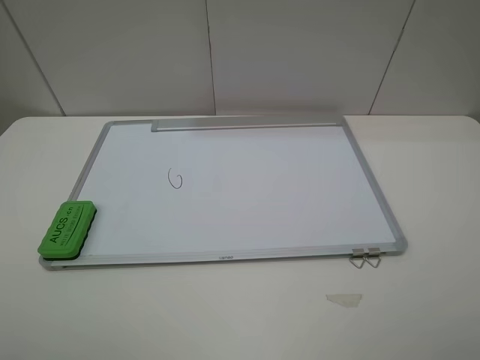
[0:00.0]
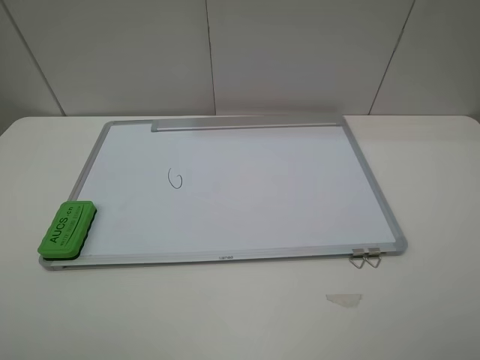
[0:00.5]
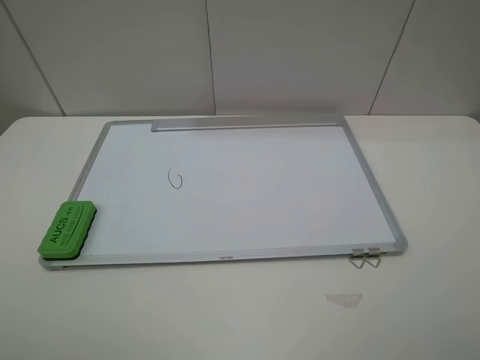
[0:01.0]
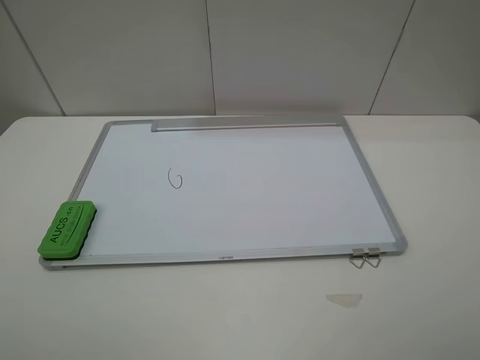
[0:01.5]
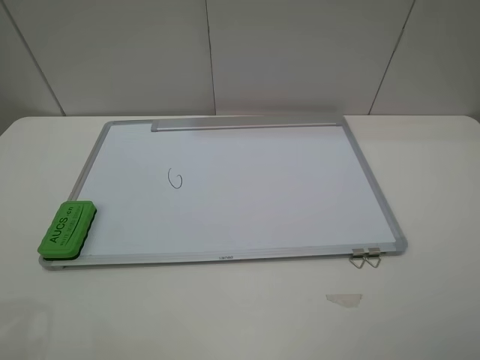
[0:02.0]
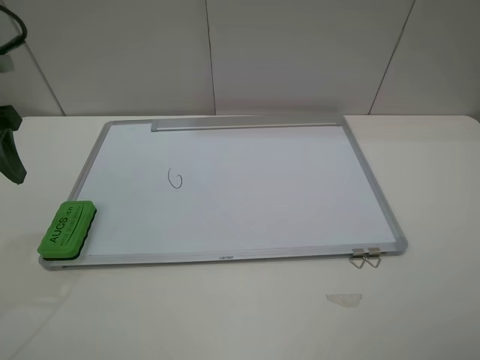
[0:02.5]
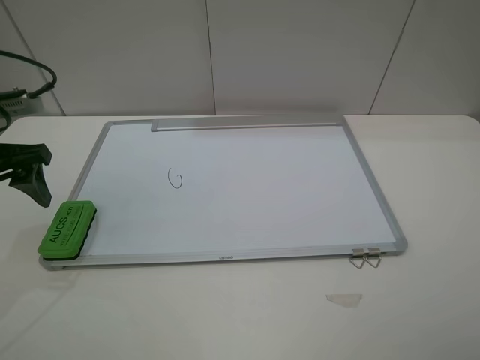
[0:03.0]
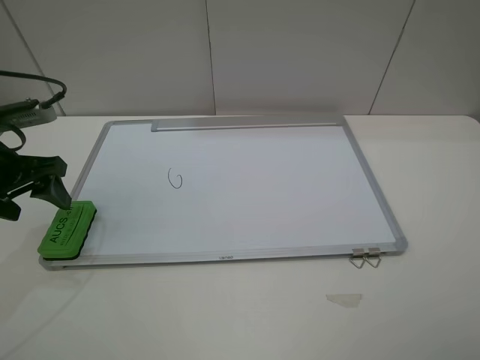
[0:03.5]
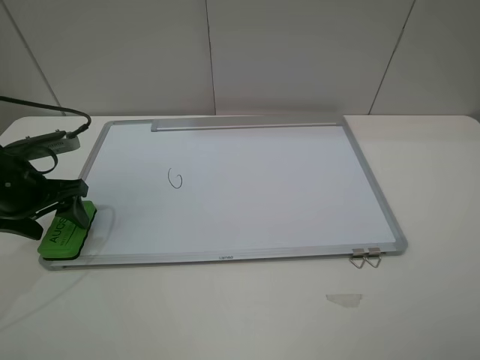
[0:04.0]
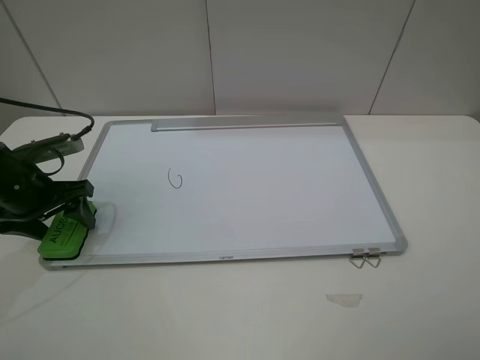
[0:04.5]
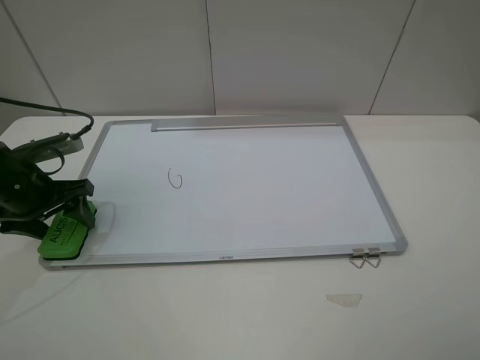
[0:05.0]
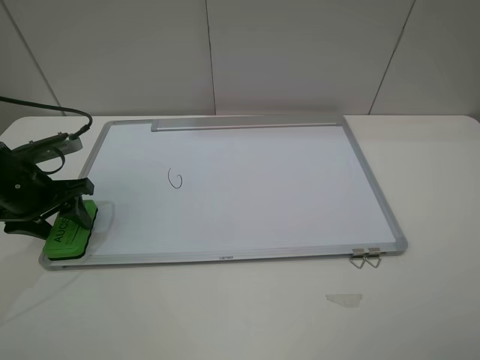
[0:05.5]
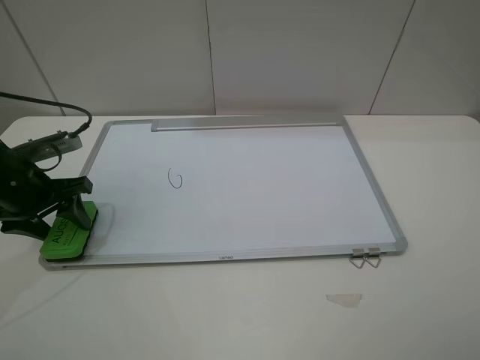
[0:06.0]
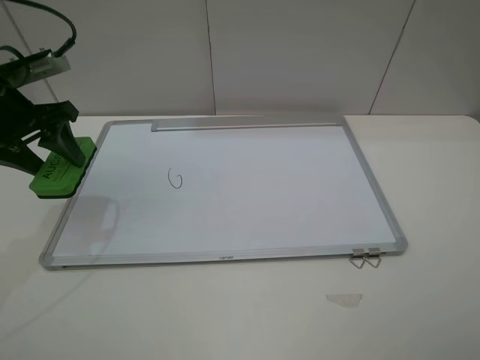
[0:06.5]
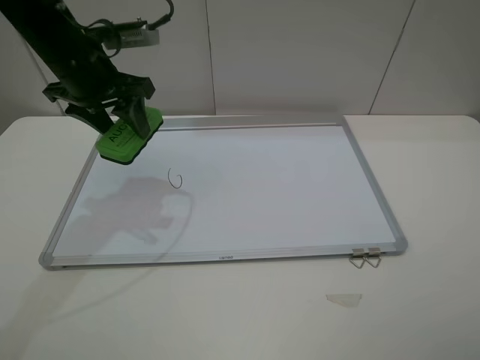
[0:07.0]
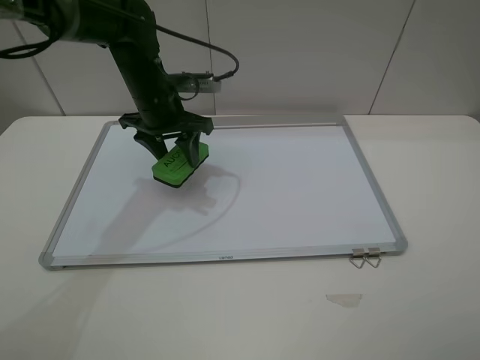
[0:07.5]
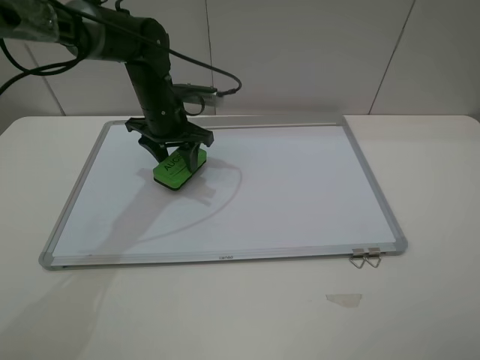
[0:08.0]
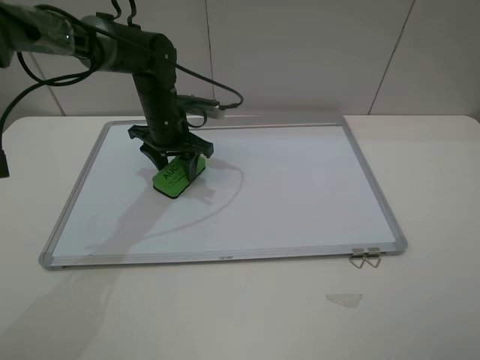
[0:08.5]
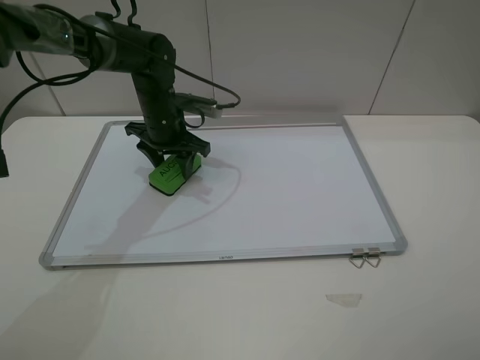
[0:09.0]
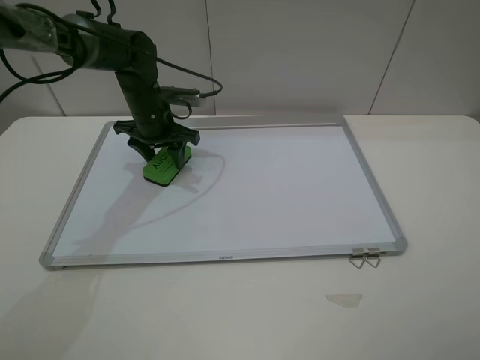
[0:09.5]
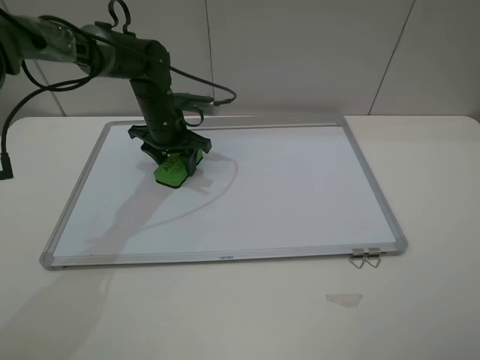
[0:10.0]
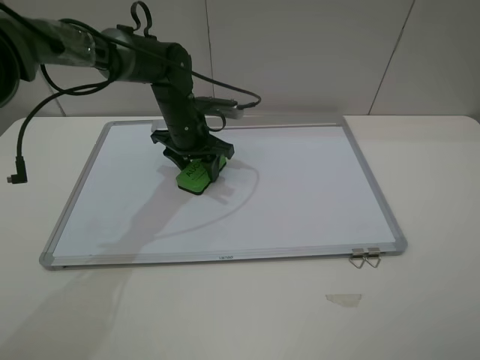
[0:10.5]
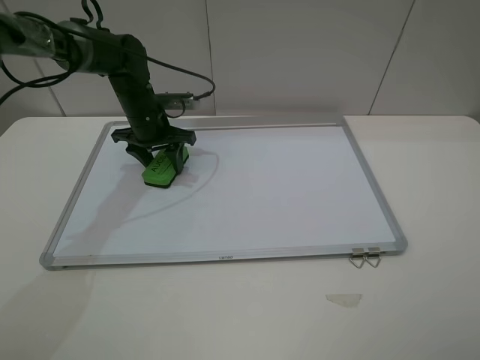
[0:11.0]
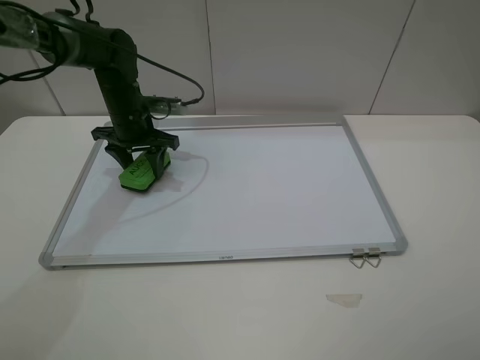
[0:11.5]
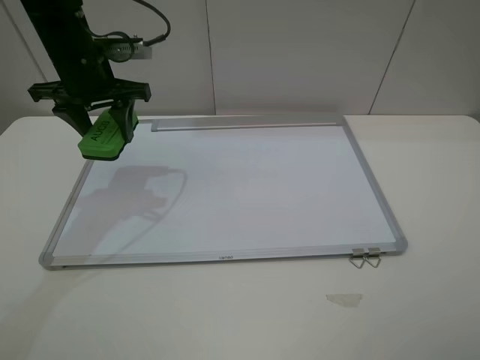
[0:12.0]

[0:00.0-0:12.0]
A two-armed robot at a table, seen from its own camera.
Step, 0:00.0 to 0:05.0: Grasp the eraser with the left gripper.
Step, 0:05.5 to 0:11.0: Grasp the eraser and wipe the blackboard with the left gripper.
0:02.0 to 0:04.0: The left gripper shifts approximately 25 cm downward and forward.
0:04.0 to 0:06.0: The left gripper closes up.
0:06.0 to 0:08.0: The left gripper travels to the right and forward by approximately 25 cm.
0:08.0 to 0:10.0: The grippers make only small movements.
0:10.0 to 0:12.0: The left gripper moves upward and to the left, some 15 cm.

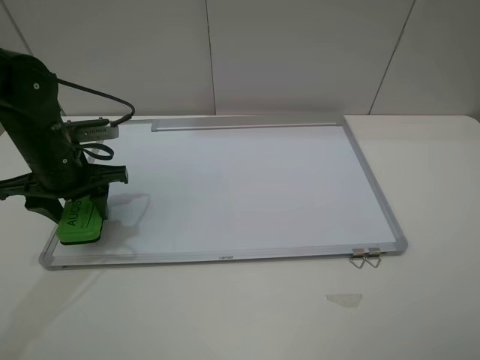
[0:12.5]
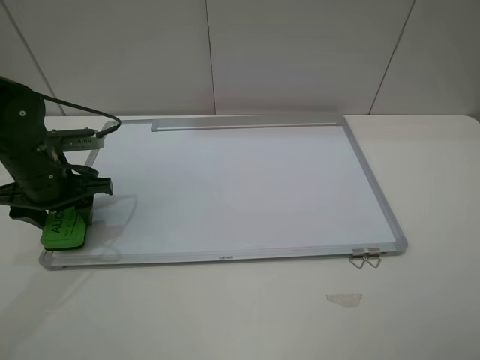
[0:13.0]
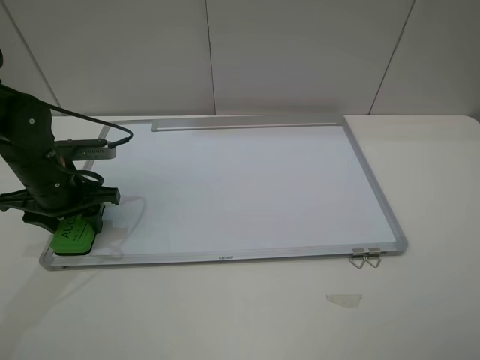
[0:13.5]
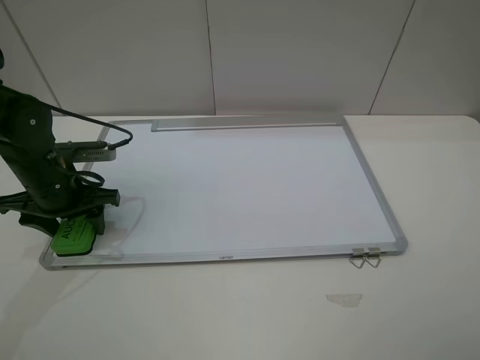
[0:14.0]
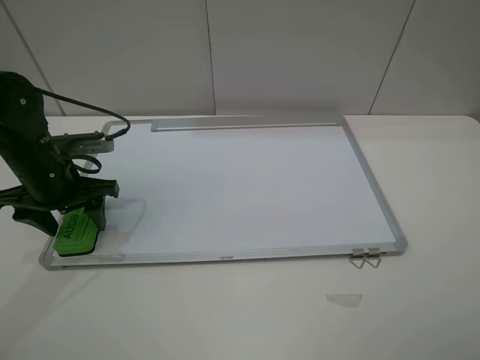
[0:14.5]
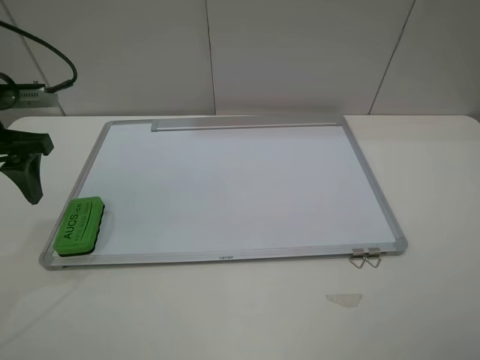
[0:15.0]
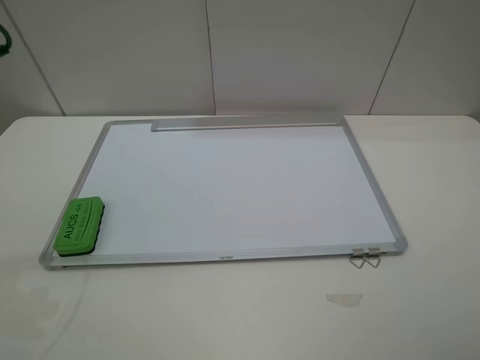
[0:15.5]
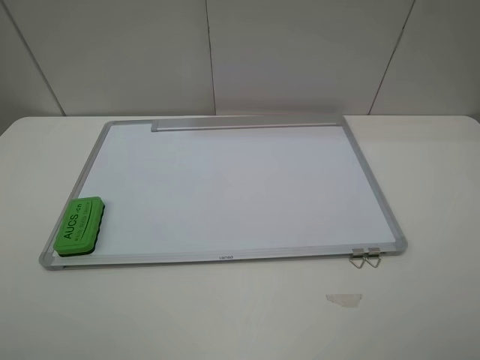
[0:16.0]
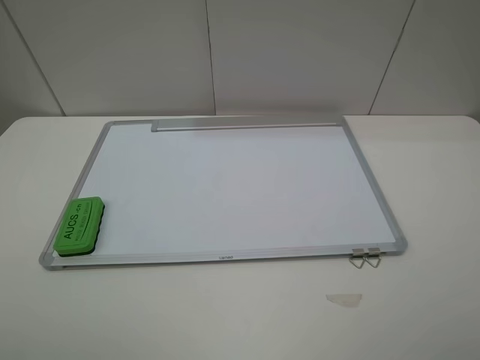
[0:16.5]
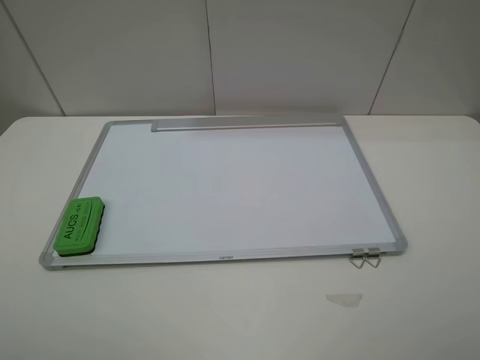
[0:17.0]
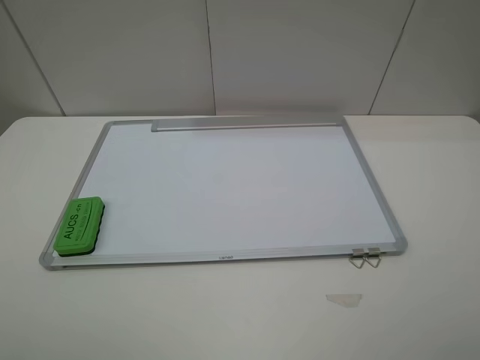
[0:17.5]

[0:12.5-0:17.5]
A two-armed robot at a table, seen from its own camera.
Step, 0:12.5 to 0:14.5: Place the eraser with the left gripper.
0:12.5 to 0:15.0: The left gripper shifts roughly 10 cm upward and to the left, and opens its fingers.
0:15.0 to 0:17.5: The left gripper heads backward, covering roughly 30 cm.
